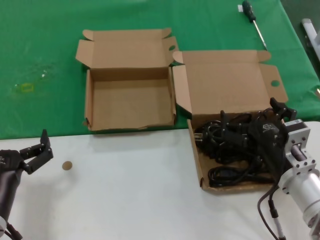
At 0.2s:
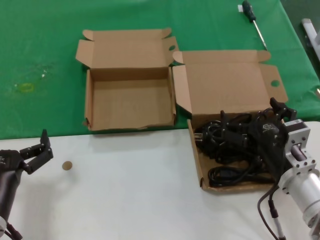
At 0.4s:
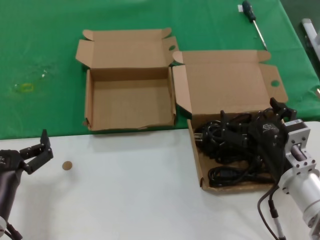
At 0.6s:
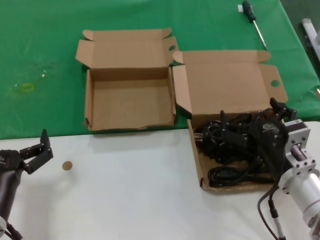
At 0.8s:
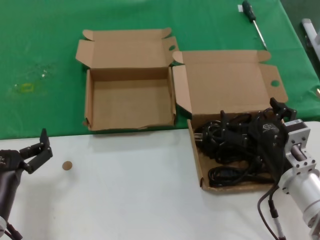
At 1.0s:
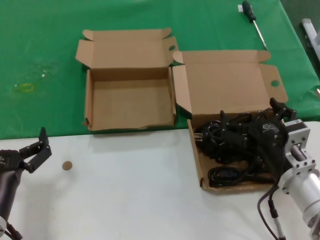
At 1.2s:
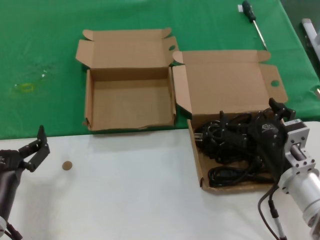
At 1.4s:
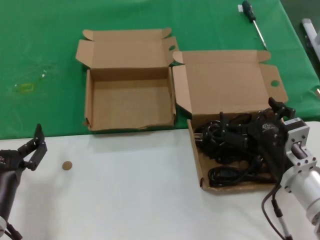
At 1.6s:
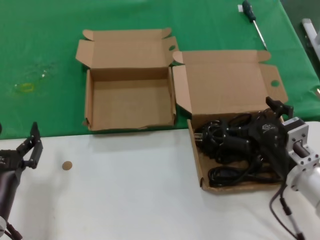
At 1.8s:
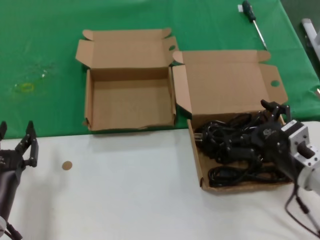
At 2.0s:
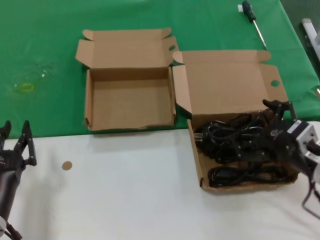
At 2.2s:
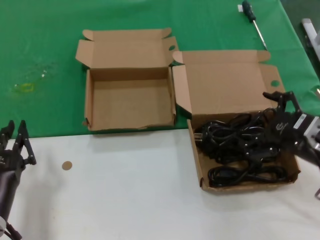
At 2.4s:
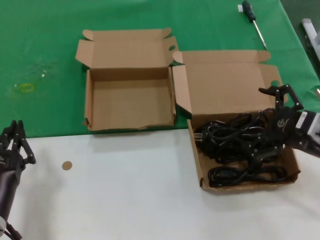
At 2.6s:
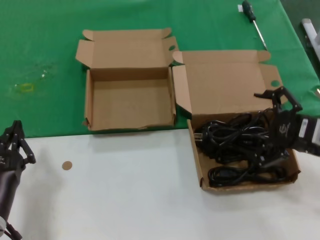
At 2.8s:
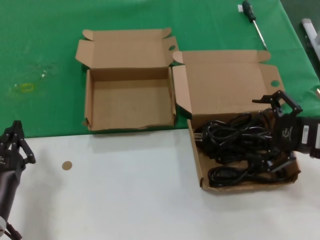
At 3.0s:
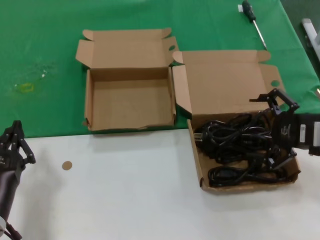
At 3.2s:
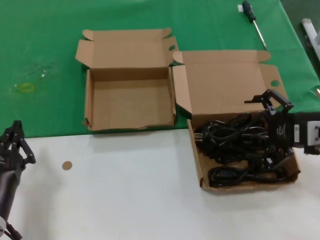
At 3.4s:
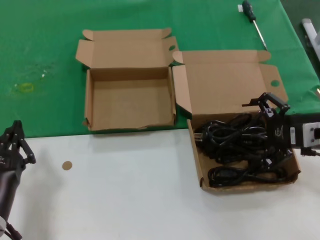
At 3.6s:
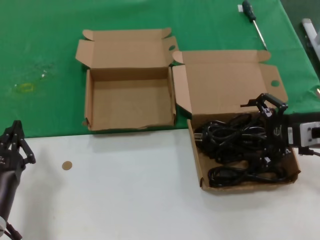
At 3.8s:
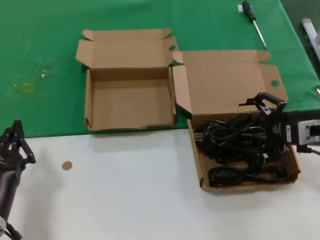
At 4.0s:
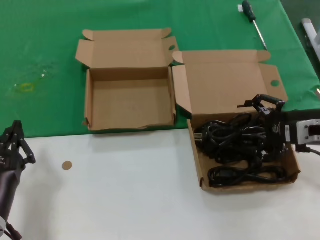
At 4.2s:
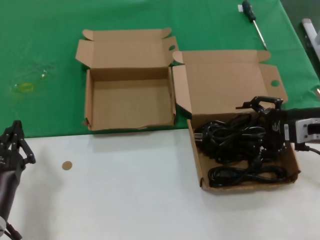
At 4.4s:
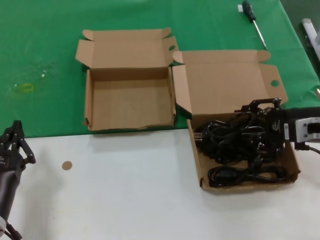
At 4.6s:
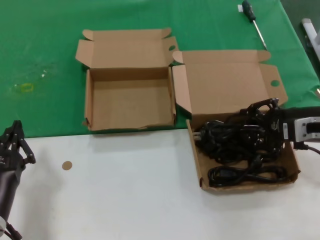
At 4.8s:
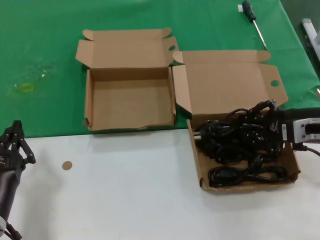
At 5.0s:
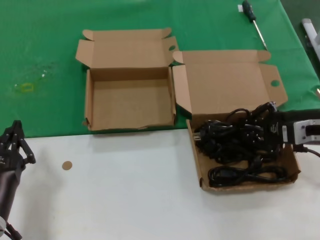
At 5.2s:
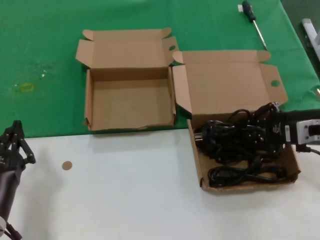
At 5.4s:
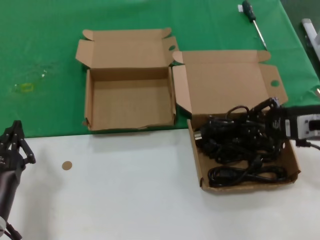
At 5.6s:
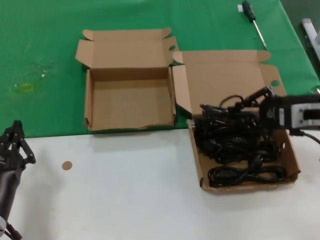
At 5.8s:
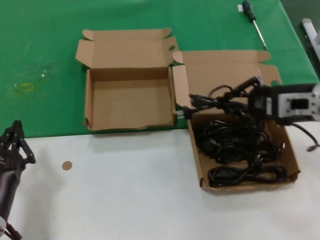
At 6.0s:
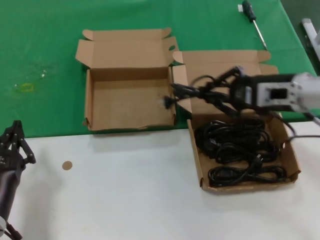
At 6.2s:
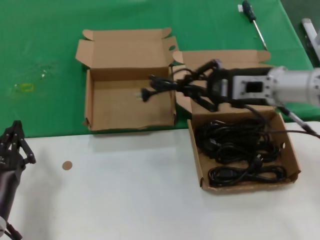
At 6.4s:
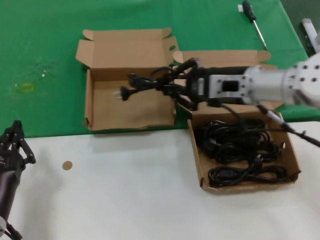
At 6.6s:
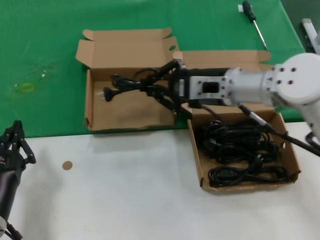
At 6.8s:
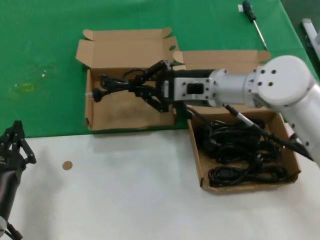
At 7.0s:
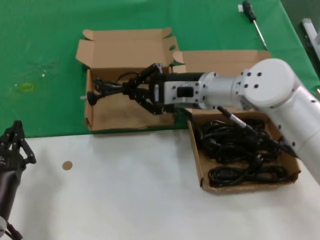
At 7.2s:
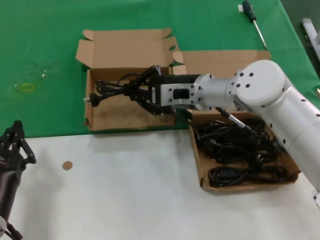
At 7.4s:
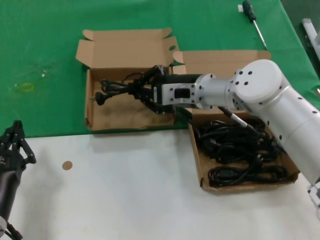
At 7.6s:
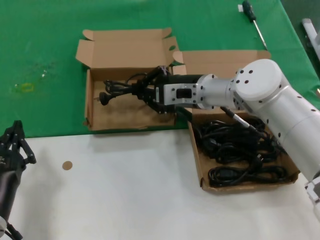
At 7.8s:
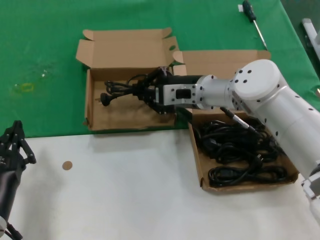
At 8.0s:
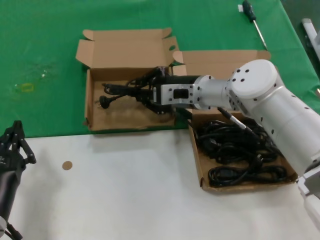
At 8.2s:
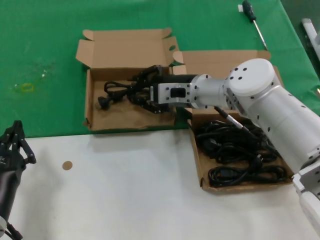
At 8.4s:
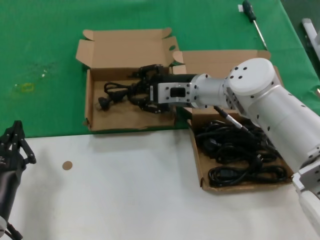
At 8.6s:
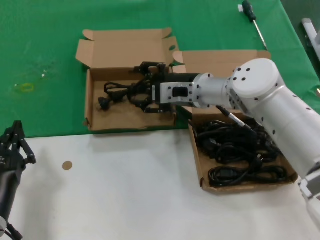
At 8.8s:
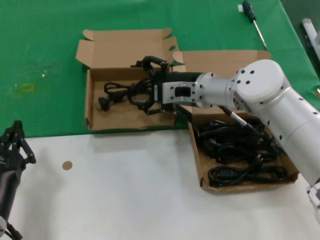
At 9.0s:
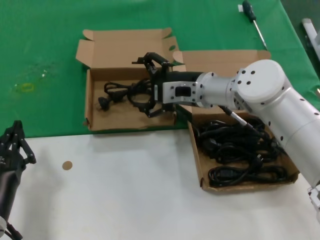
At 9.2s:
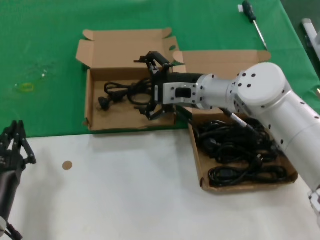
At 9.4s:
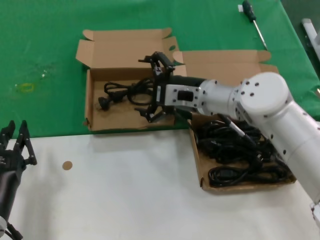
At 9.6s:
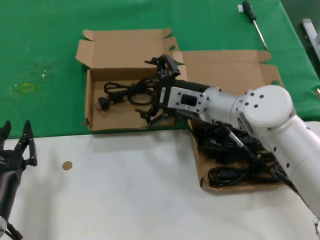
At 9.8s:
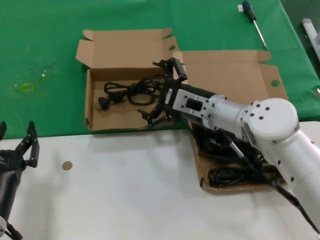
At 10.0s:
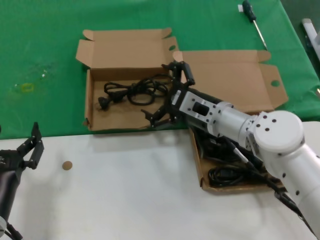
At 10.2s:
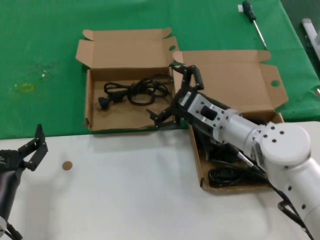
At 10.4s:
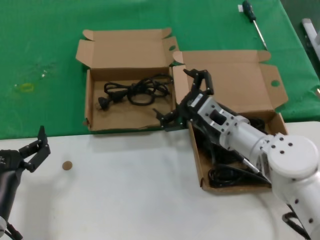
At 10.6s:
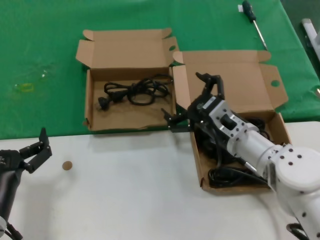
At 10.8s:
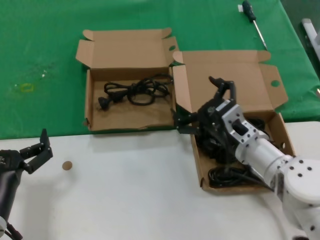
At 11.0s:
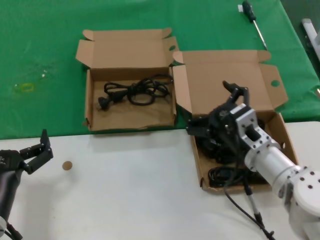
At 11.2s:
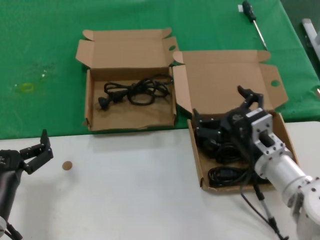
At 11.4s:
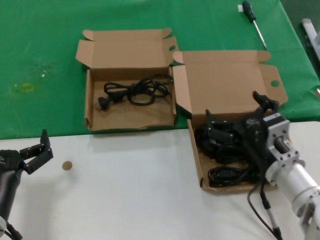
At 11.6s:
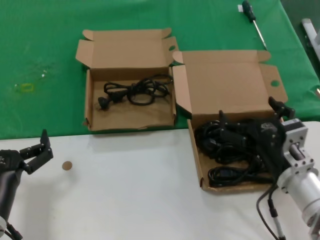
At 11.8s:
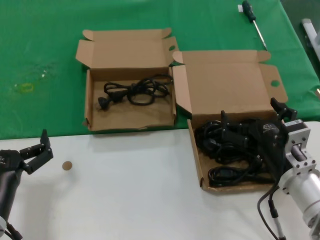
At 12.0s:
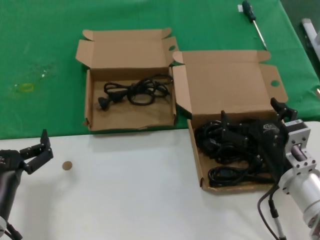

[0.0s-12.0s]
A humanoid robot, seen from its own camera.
Task of the whole recording: take the parts from the box containing them and put them into an empty box.
Step, 0.0s to 5.0s: Grasp the data cable.
Step, 5.2s to 9.2s: Place the data cable in the another box.
0.0s to 1.6s: The hands make only small movements.
1.6s to 3.0s: The right hand goes approximately 15 cm to the right and upward.
3.0s to 4.4s: There are only small adjustments of the hands.
4.4s to 6.0s: The right hand shifts approximately 5 cm to the left.
6.0s to 7.6s: The right hand is displaced to the left and forward by some 20 cm.
7.6s to 9.0s: The hands make only small movements.
9.0s to 10.4s: The right hand shifts approximately 10 cm backward and downward.
10.4s to 12.0s: The right hand goes some 15 cm backward and to the right.

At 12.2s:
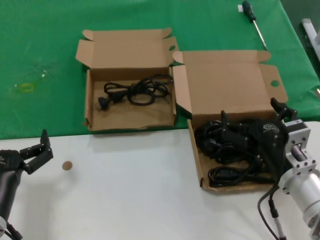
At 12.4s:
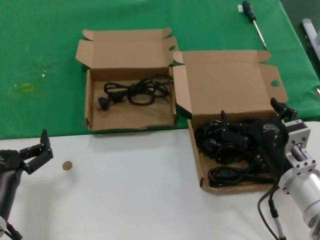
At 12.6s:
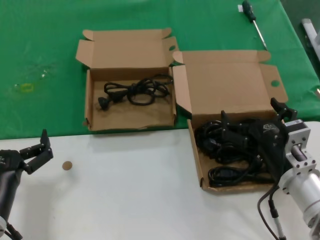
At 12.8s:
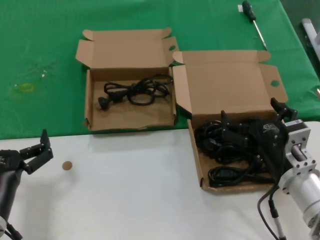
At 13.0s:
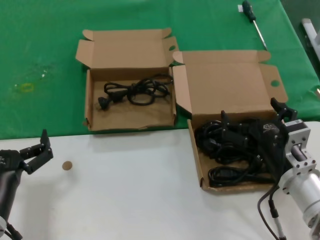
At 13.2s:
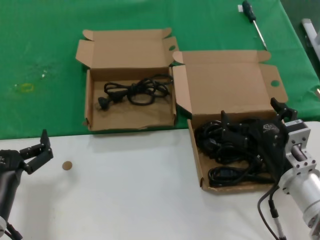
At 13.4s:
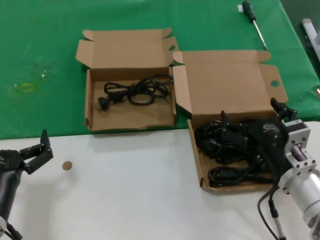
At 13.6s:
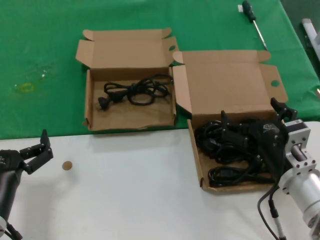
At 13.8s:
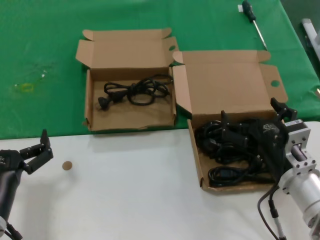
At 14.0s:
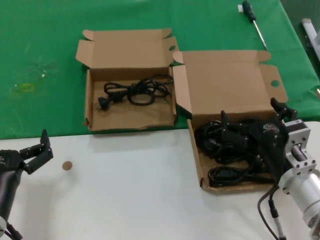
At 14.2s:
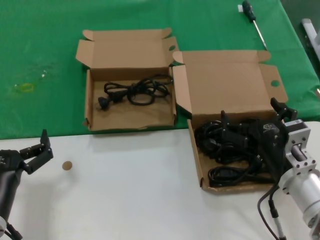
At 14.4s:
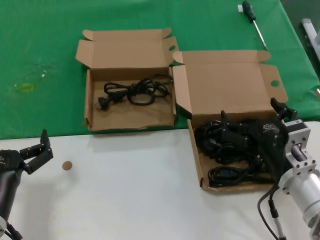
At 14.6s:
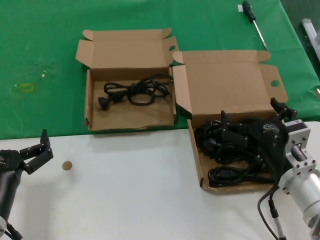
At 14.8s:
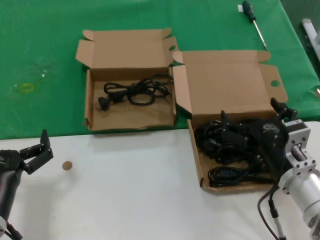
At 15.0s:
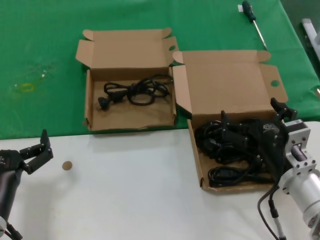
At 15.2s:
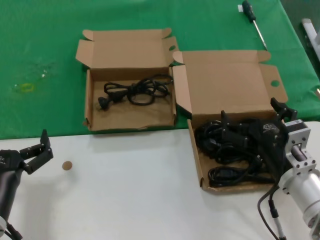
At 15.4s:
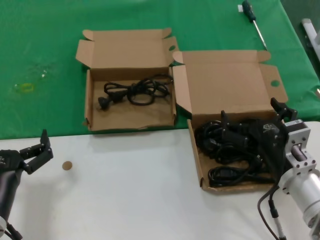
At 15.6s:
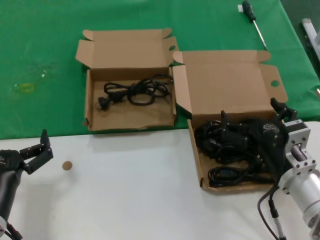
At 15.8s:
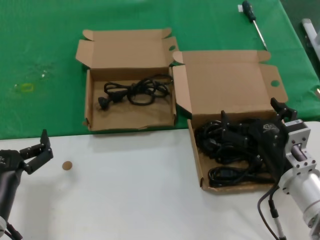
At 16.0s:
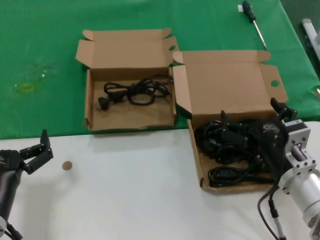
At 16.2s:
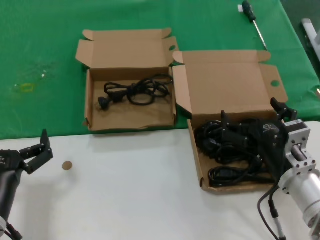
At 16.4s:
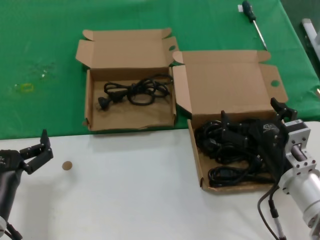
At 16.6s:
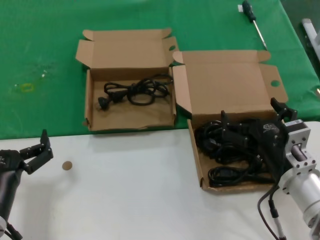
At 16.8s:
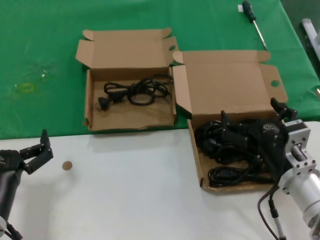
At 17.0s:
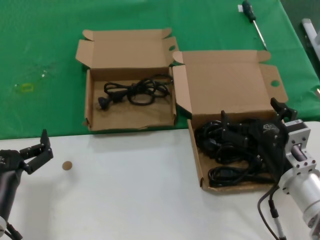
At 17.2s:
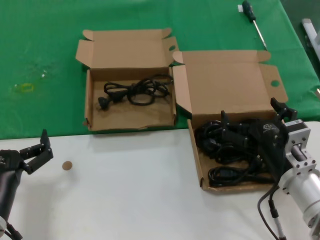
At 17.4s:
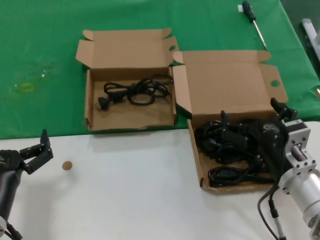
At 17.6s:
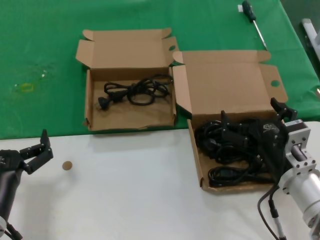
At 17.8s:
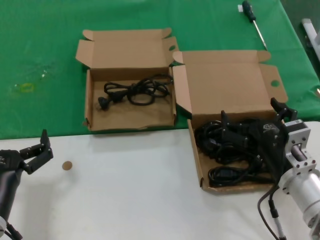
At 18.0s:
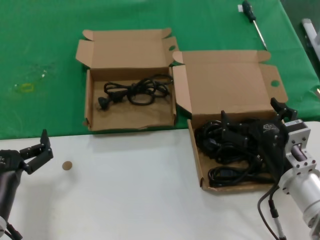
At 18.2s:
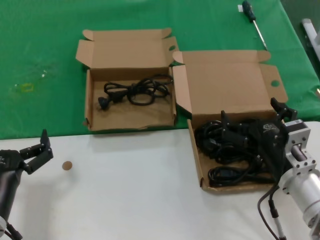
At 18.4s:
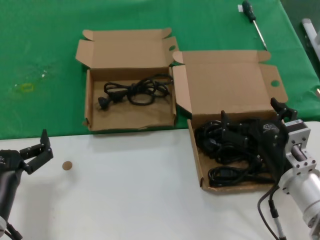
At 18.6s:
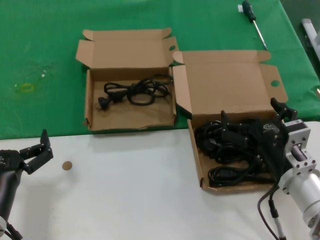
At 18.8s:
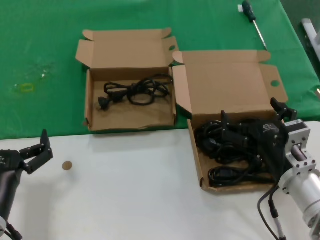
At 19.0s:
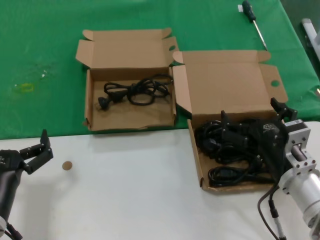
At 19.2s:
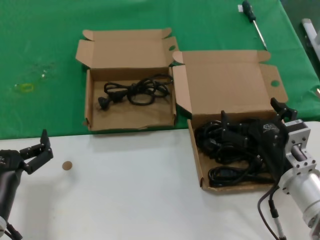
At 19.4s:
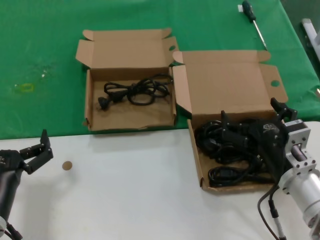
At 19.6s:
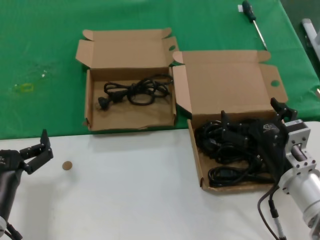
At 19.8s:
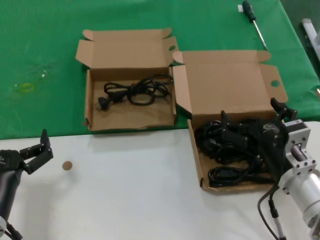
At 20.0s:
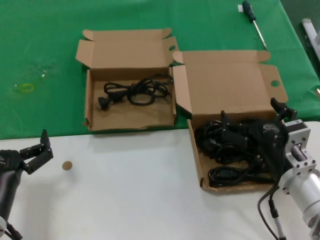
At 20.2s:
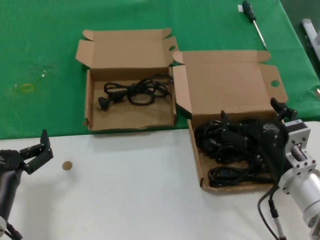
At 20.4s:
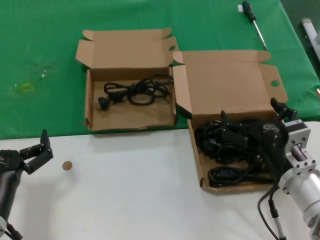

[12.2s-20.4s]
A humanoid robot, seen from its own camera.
Task of the whole recording: take the parts from the box containing them and put them into an empty box.
12.2s to 20.4s: Both hands stay about where they are.

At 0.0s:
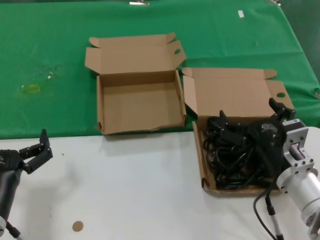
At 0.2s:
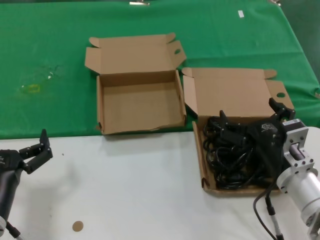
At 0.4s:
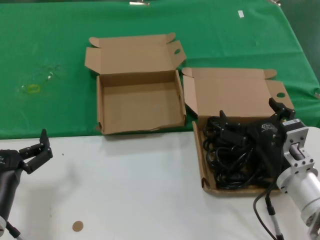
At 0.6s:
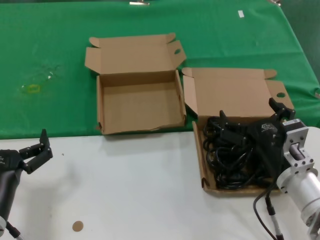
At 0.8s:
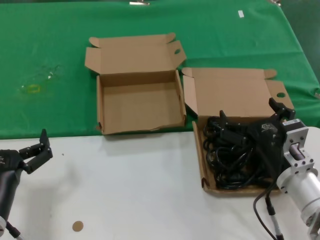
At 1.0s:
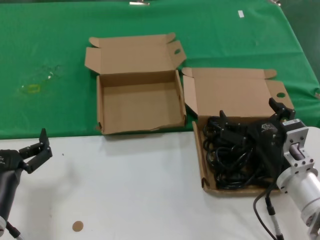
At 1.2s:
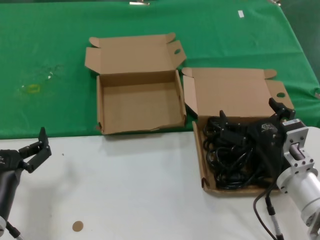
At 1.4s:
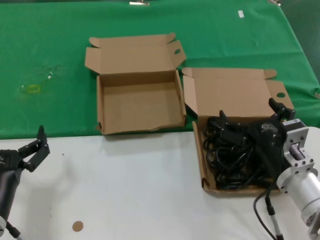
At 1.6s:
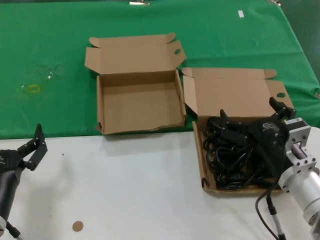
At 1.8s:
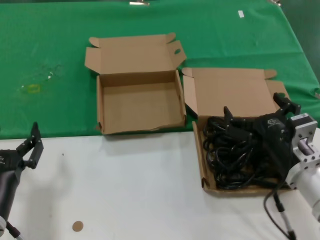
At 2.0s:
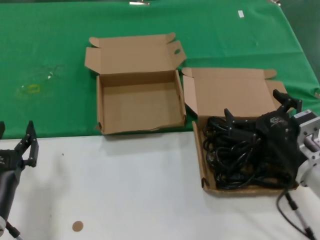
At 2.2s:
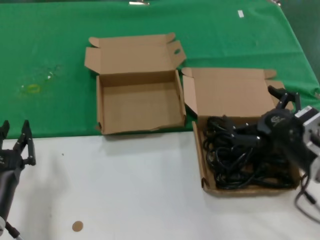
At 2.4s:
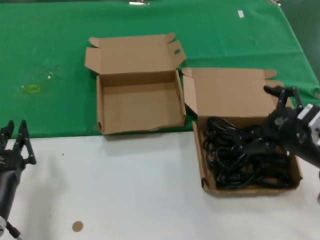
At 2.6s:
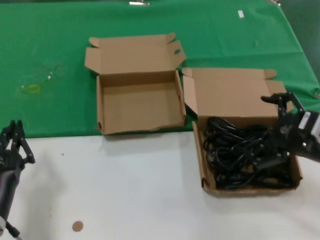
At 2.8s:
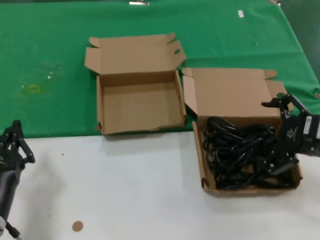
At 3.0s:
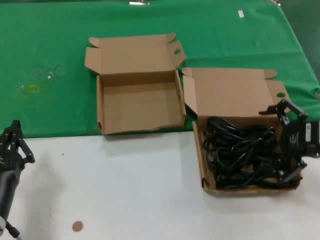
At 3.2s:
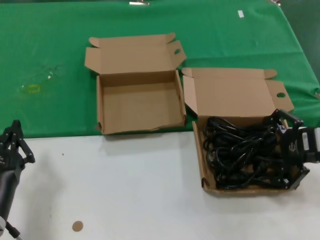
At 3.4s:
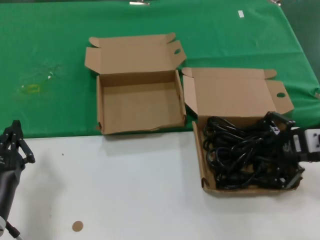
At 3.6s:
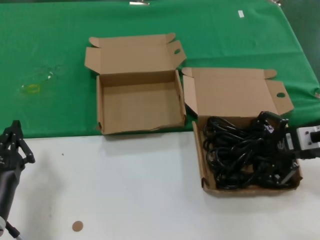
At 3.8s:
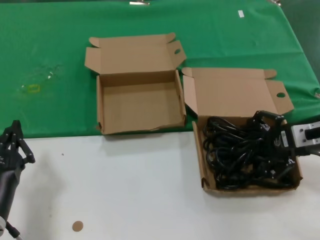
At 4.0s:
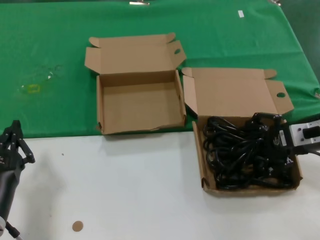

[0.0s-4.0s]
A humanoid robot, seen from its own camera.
Task of the whole recording: take the parts from the box containing them and put them into an empty box.
0.0s to 1.4s: Both hands stay about where they are.
1.4s to 2.6s: The right hand heads upward and to the right, covering about 15 cm.
2.6s to 4.0s: The right hand shifts some 10 cm forward.
